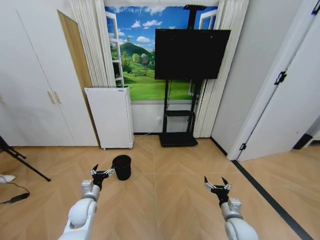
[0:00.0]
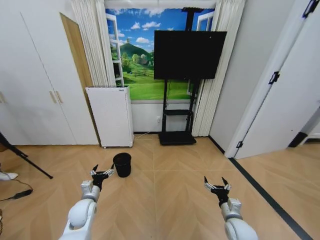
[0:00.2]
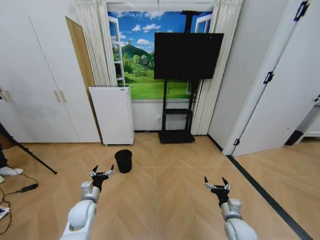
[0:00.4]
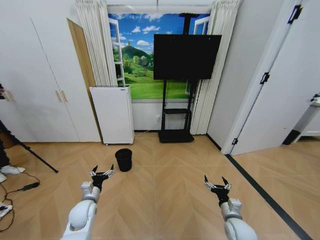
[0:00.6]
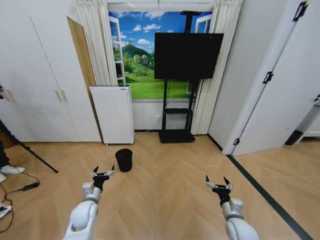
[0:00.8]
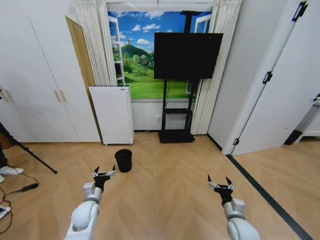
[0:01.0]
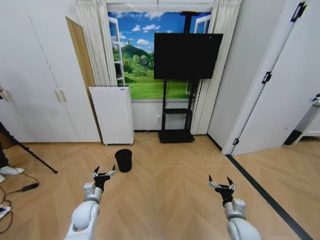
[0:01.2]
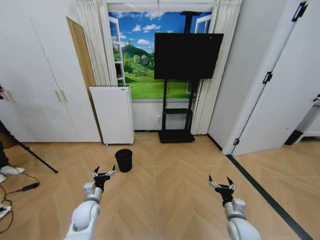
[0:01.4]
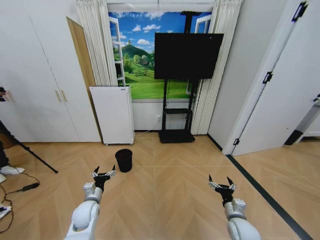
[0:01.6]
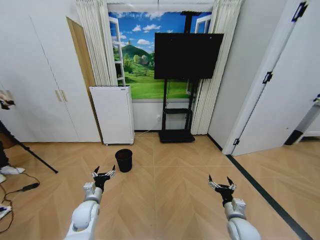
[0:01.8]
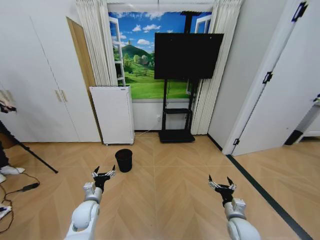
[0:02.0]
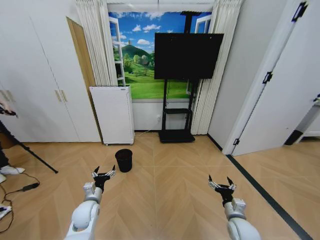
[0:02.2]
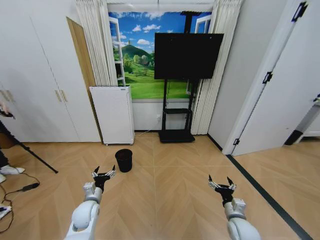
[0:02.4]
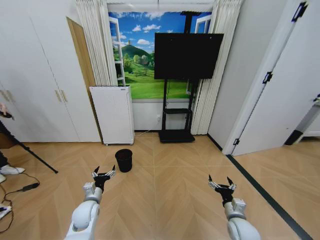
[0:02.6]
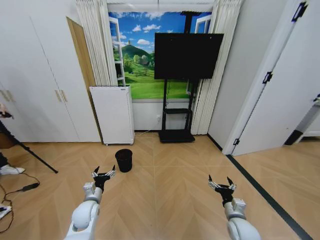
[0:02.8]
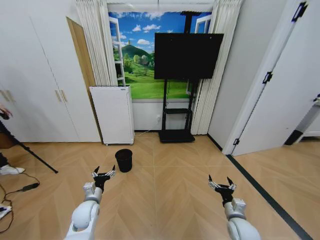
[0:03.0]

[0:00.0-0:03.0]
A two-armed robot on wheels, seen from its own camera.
Task of the whole recording: Pick up the trash bin and place the garbage on the floor into it.
0:00.0 to 0:01.6: The grippers stay close to where they were, moving slightly.
0:01.6 to 0:03.0: Both grippers stay about where they are.
